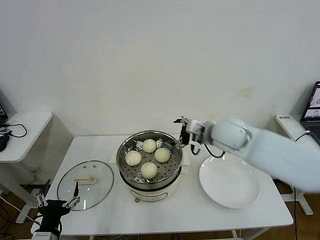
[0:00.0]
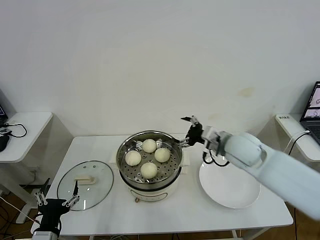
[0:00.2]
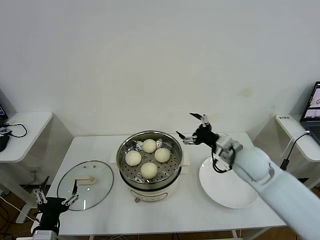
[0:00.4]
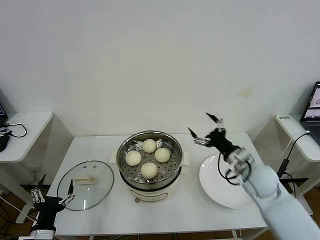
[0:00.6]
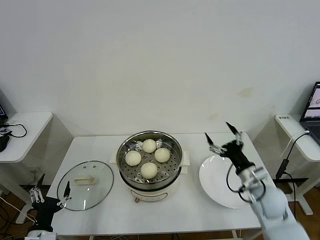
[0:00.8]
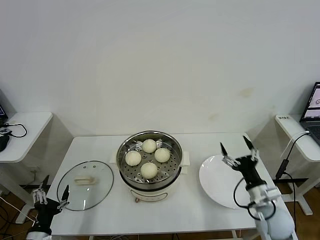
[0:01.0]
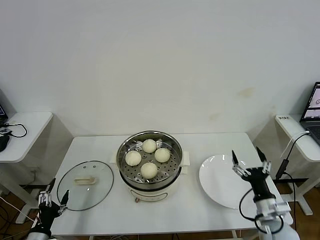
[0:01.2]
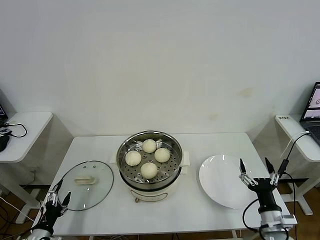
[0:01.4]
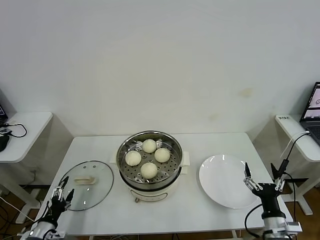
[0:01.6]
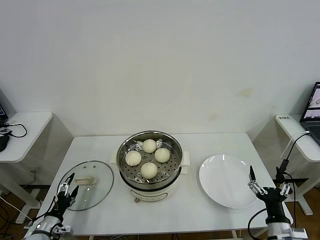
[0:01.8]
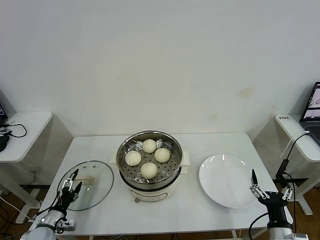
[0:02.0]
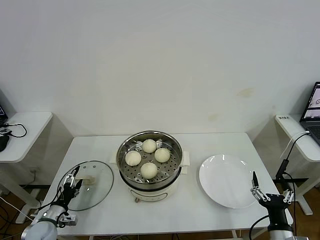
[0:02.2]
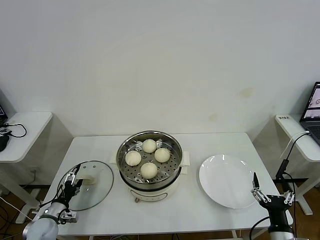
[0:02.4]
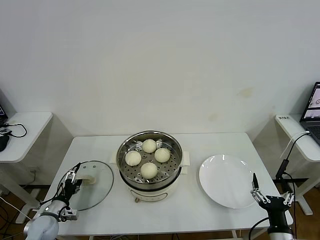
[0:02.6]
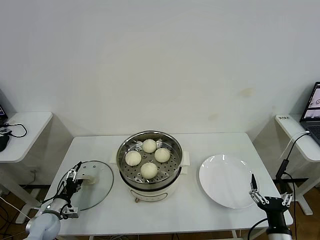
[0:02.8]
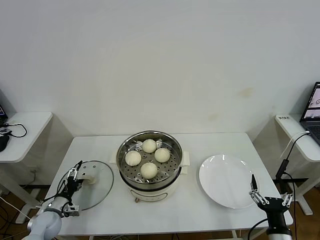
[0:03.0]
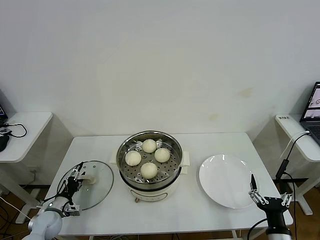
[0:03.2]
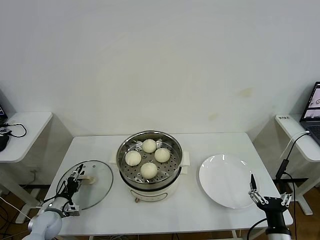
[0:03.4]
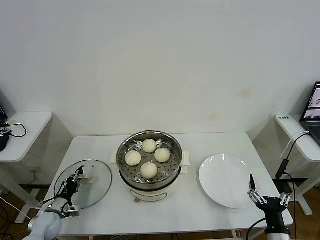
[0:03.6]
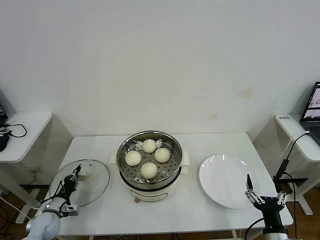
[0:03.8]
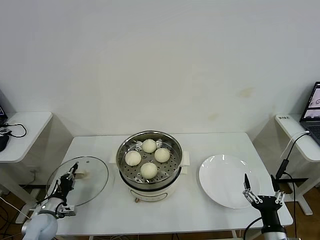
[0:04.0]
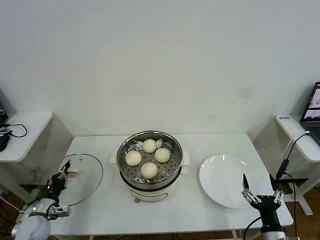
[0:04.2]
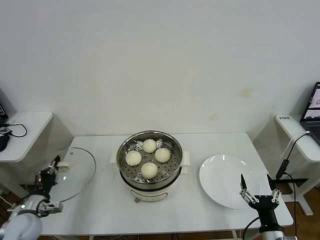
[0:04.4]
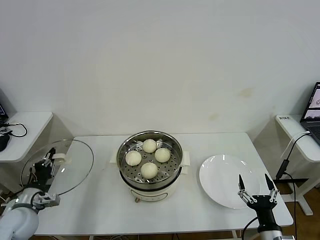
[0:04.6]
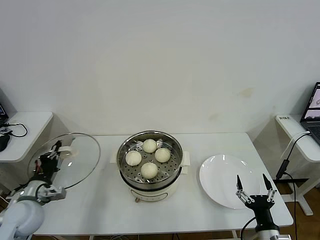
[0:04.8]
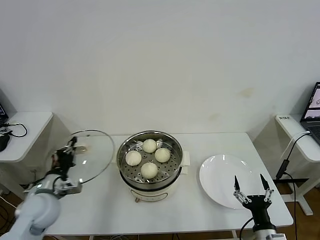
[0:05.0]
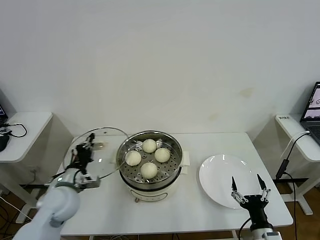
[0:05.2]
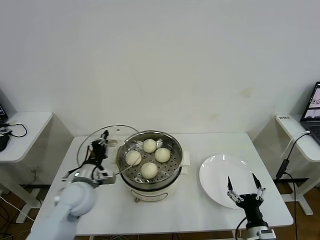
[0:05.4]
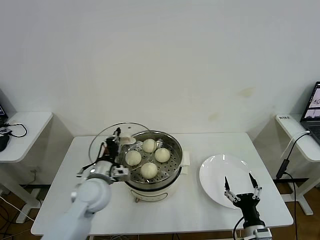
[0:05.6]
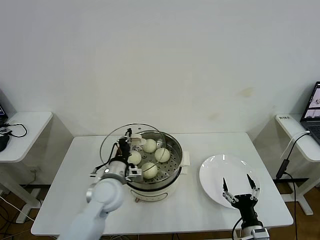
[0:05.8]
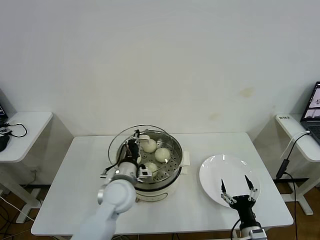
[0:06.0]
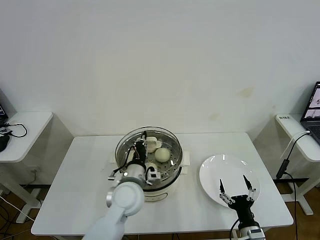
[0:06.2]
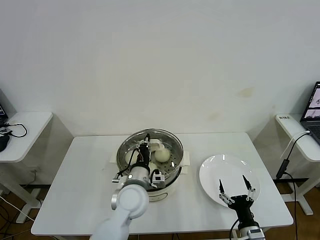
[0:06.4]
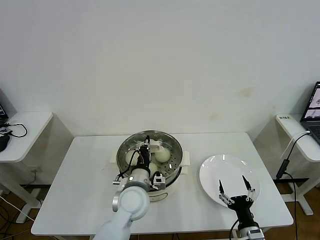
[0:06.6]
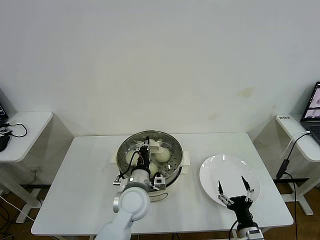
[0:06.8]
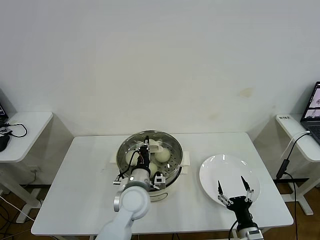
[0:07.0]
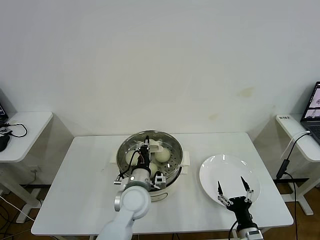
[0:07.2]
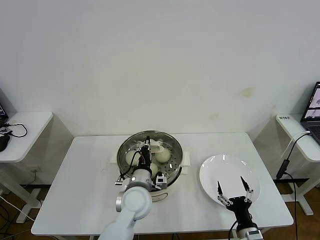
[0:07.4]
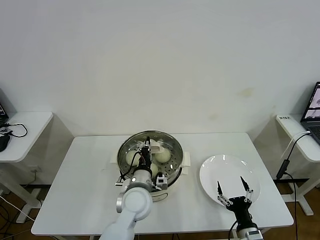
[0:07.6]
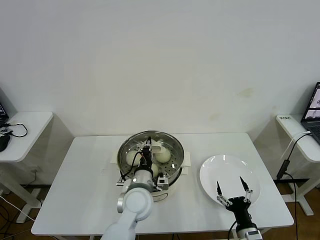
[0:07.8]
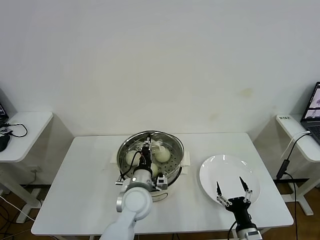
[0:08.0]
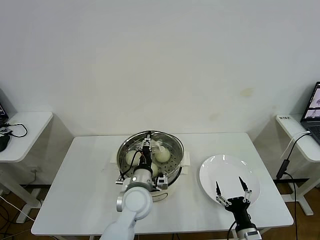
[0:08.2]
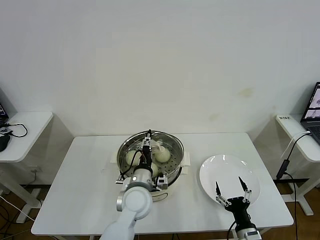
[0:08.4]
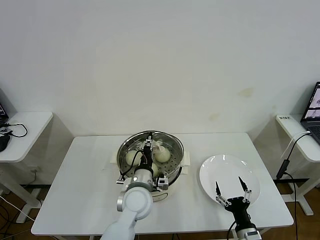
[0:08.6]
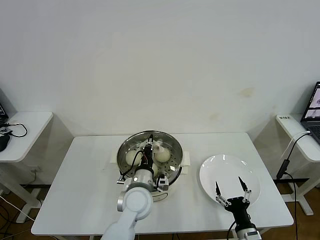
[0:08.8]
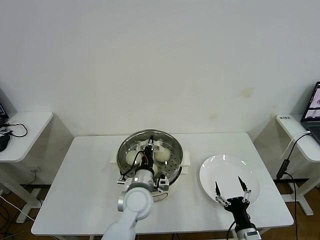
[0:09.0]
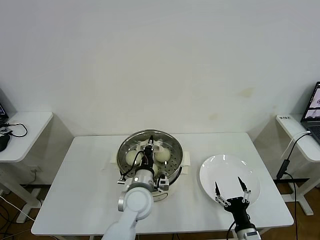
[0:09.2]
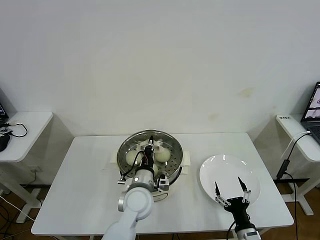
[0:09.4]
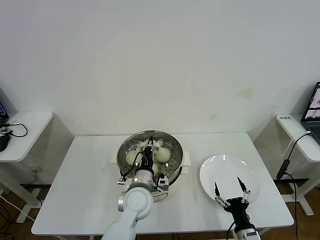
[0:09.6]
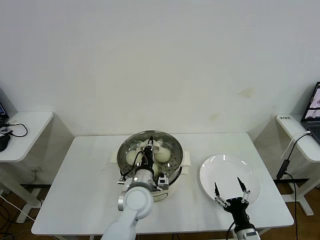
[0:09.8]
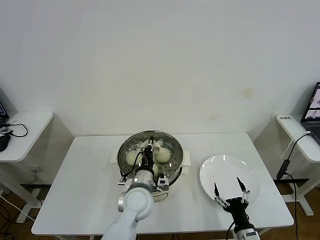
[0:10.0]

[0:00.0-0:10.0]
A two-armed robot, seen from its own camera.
Task of the whole recording: take steamed baozi put them in steamer then cover it.
Step, 0:00.0 to 0:03.8: Grasp the pot lid with left gripper.
0:00.0 to 0:01.4: The right gripper travels backward, downward and to the right by roughly 35 cm. The left gripper travels to the left and downward by approximately 15 cm.
0:01.4 to 0:02.8: The right gripper is displaced backward by roughly 5 cm. The left gripper is displaced forward by about 15 cm.
0:02.8 to 0:04.2: The left gripper closes its fingers.
0:04.2 to 0:05.8: The right gripper changes place by about 5 cm, while the left gripper shifts approximately 30 cm to the right and upward.
0:05.8 to 0:07.2: The left gripper heads to the right, covering about 10 cm.
0:07.2 to 0:08.6: The left gripper opens its fingers.
0:08.6 to 0:10.0: The left gripper closes up.

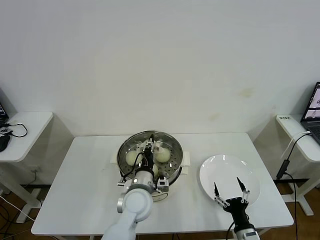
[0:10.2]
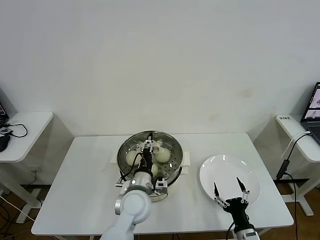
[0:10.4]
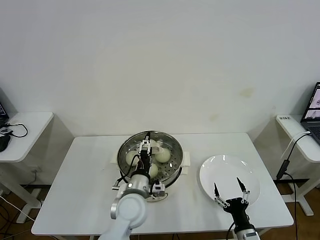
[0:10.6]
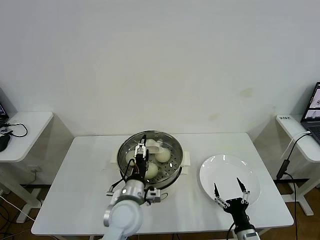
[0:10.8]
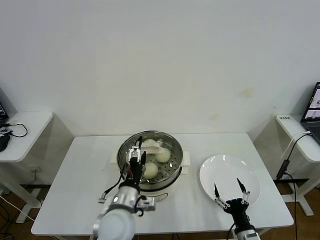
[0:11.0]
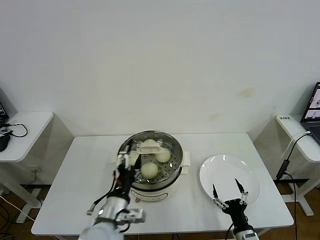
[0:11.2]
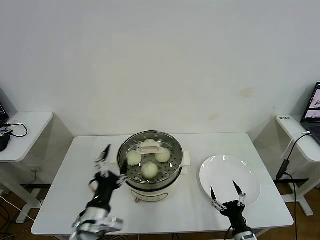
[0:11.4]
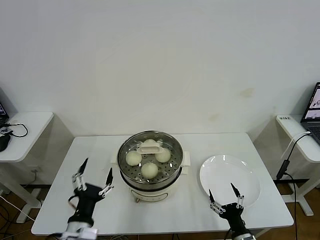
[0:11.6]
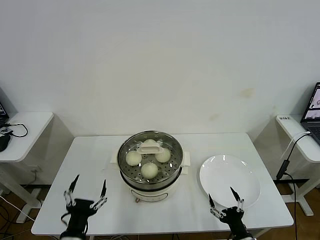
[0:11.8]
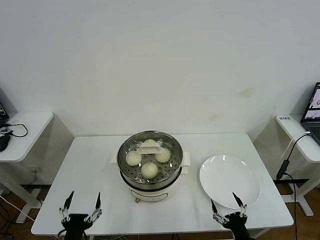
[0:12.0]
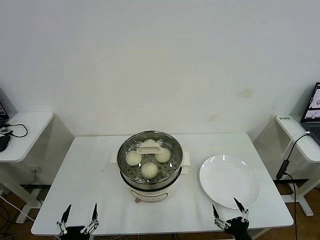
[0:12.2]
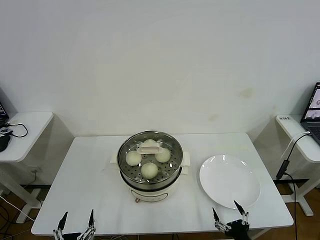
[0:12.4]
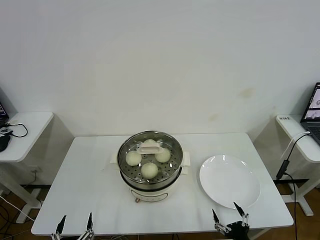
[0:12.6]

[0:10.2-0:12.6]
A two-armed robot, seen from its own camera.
Task of the whole recording: take steamed baozi put them in steamer then cover it.
0:10.2 to 0:11.4: The left gripper moves backward and to the left, approximately 15 cm, and opens.
0:11.4 to 0:12.6: The left gripper shifts roughly 20 cm backward, downward and to the left; the right gripper moves backward, about 5 cm.
